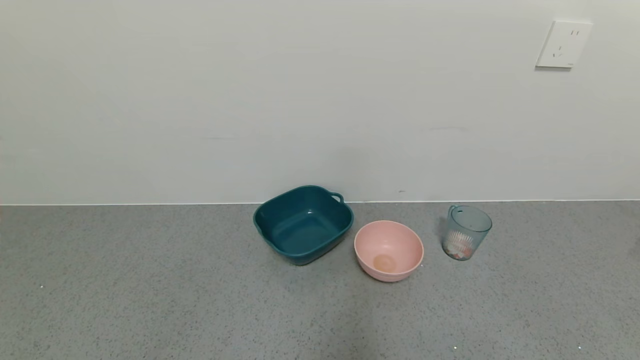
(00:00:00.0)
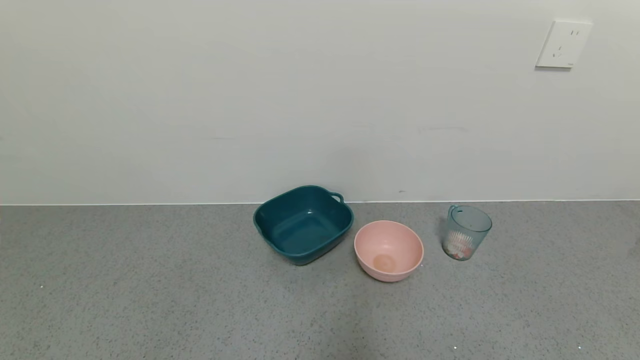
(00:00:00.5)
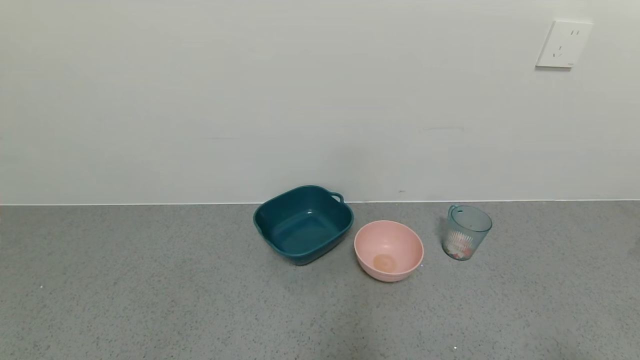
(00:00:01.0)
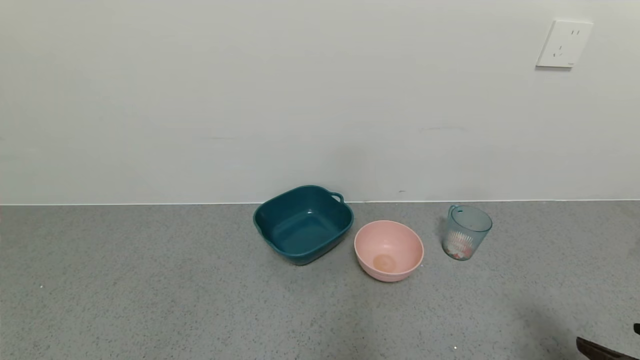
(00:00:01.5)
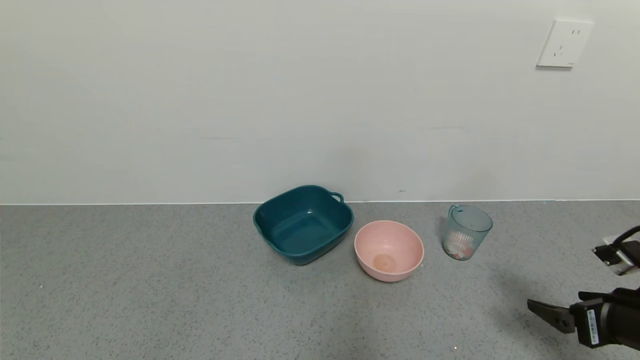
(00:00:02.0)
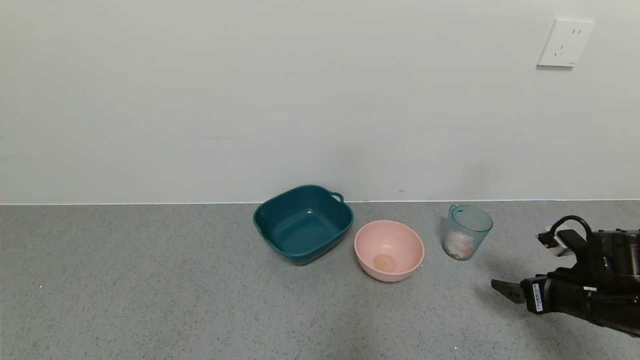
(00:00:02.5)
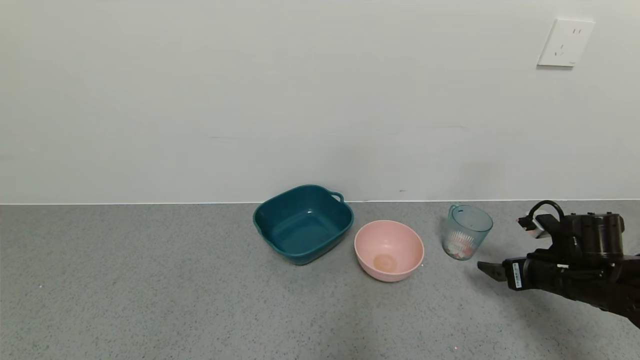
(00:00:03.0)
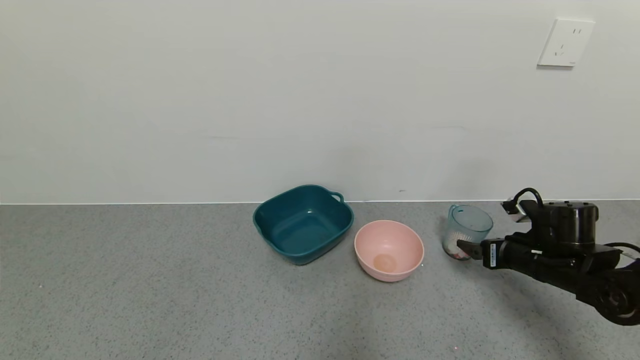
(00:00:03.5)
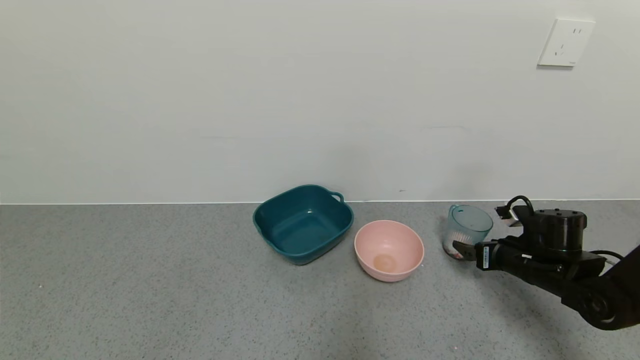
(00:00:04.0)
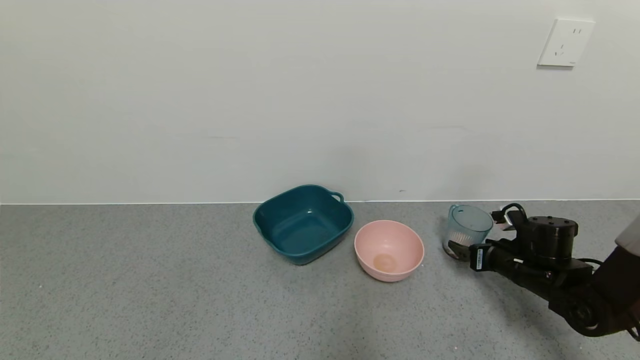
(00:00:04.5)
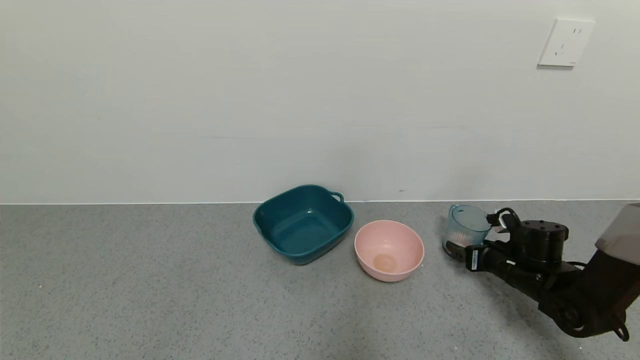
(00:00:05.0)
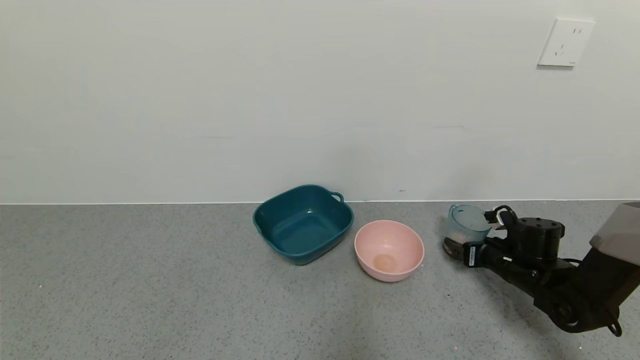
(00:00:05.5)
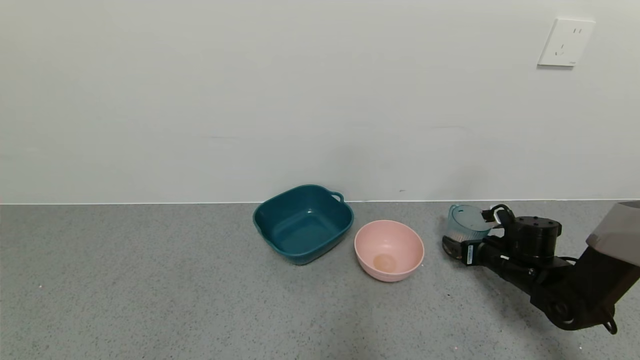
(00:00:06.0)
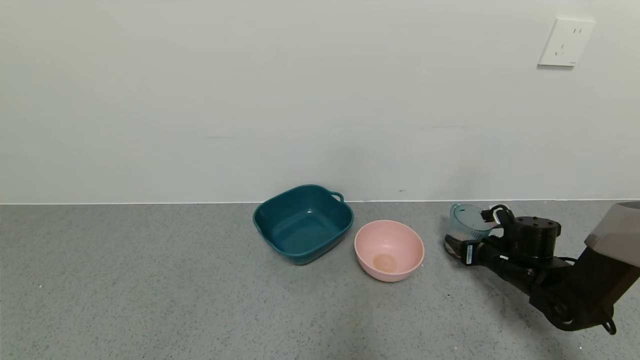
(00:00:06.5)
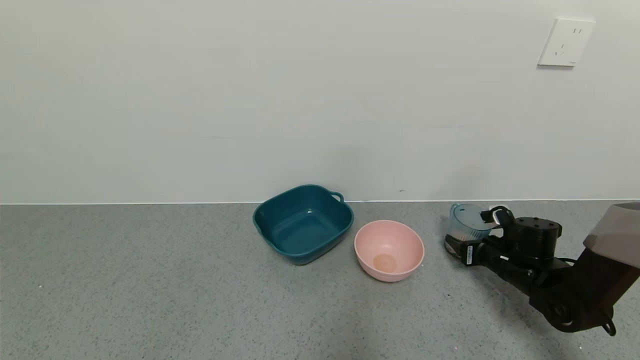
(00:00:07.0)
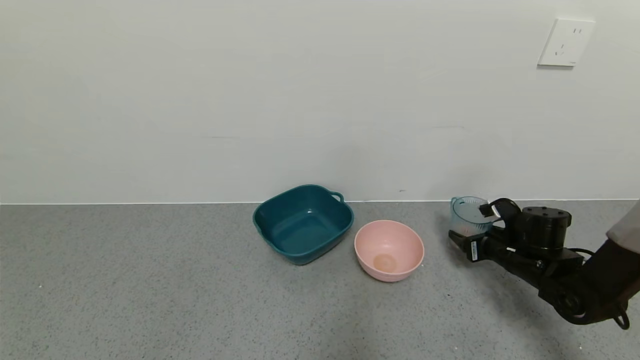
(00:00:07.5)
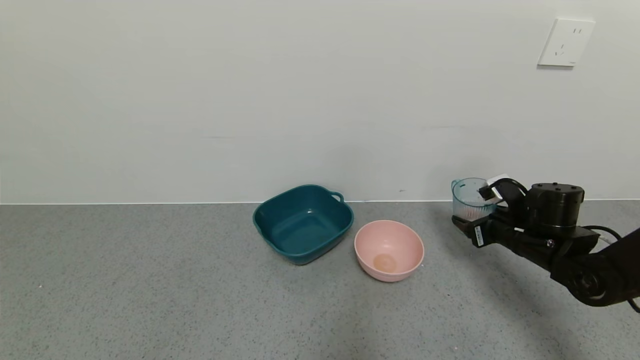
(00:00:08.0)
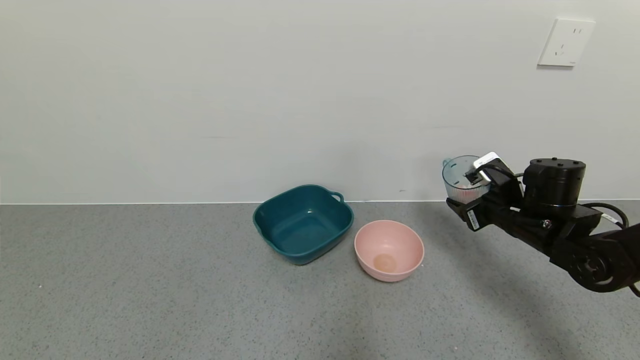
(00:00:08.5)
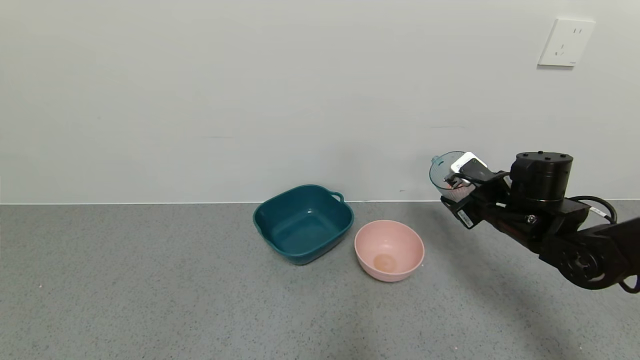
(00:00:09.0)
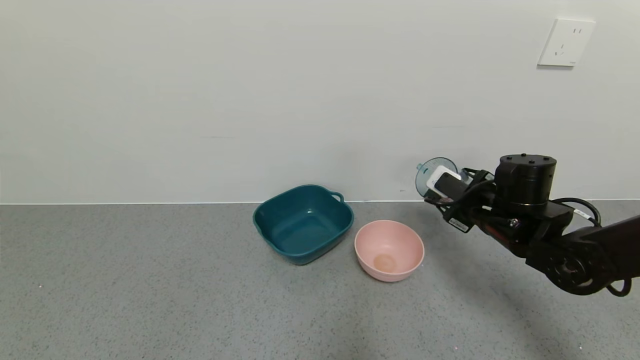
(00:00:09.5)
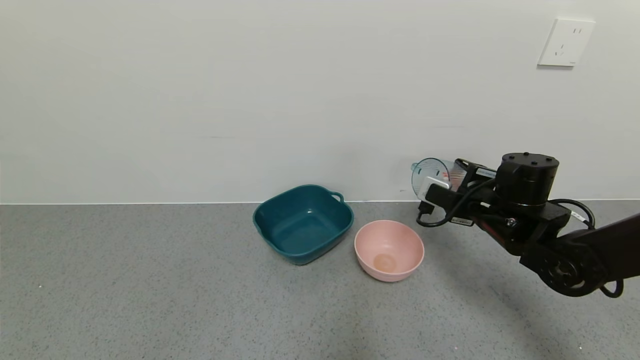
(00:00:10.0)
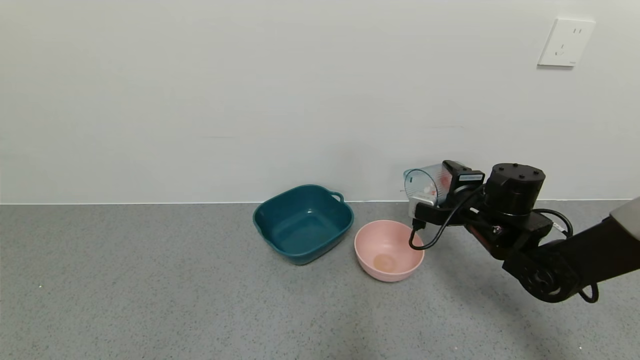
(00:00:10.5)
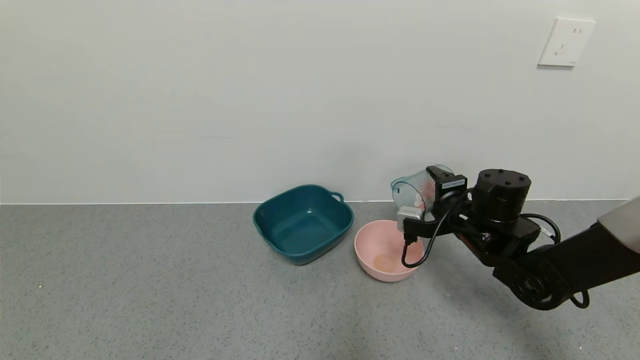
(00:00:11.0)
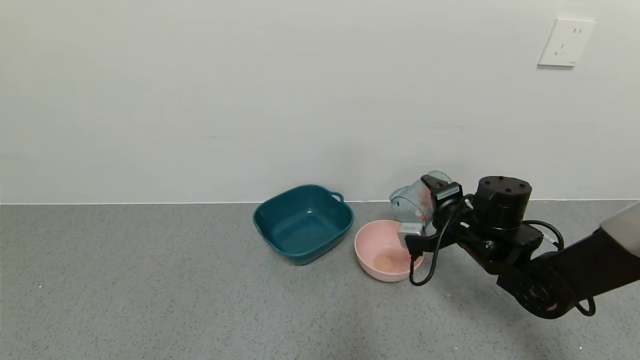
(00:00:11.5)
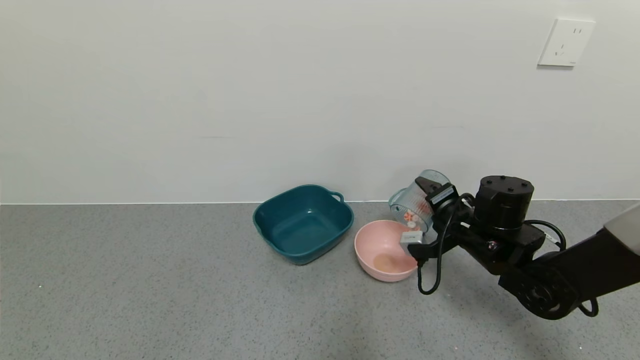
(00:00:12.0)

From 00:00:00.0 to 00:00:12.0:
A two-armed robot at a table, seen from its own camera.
Task of the whole recording: use a gripper to pick up the cup and pour the solid into a bowl or tray.
Step, from 00:00:00.0 to 00:00:07.0: Grasp the glass of shrimp with the right gripper.
From 00:00:00.0 to 00:00:02.0: The right gripper goes some 20 cm forward.
From 00:00:02.0 to 00:00:04.0: The right gripper is displaced forward and downward by about 15 cm.
From 00:00:04.0 to 00:00:06.0: The grippers stay close to where they were, moving slightly.
From 00:00:06.0 to 00:00:08.0: The right gripper travels upward by roughly 10 cm, and closes its fingers.
From 00:00:08.0 to 00:00:10.0: The right gripper shifts roughly 10 cm to the left and upward.

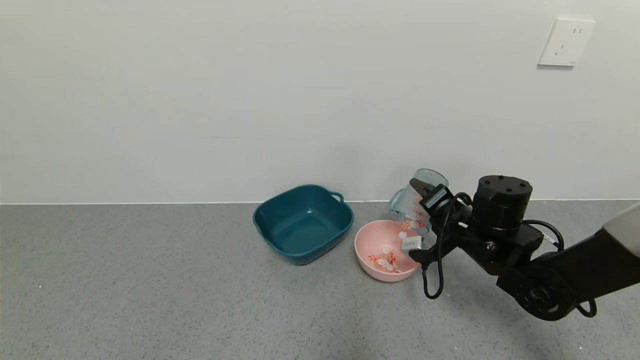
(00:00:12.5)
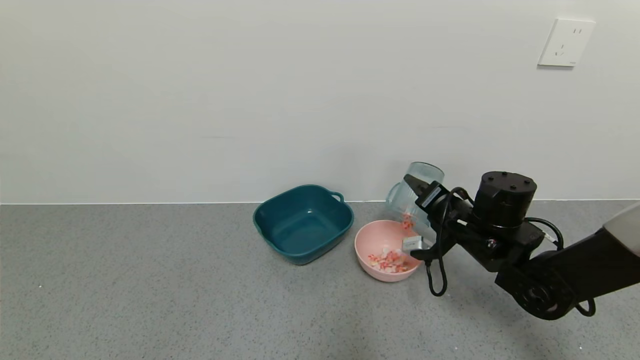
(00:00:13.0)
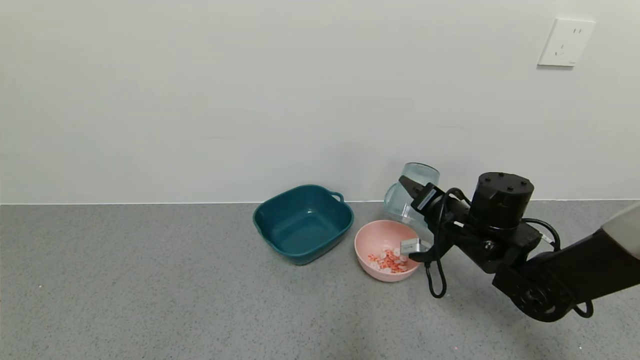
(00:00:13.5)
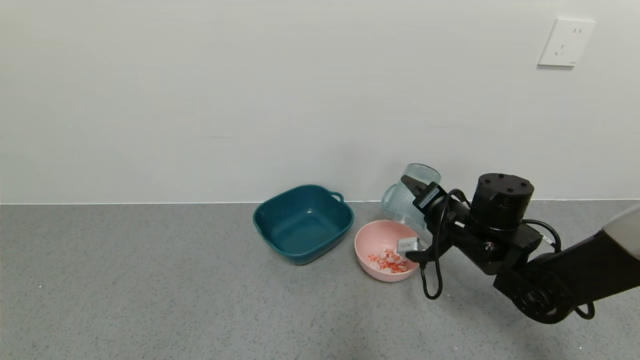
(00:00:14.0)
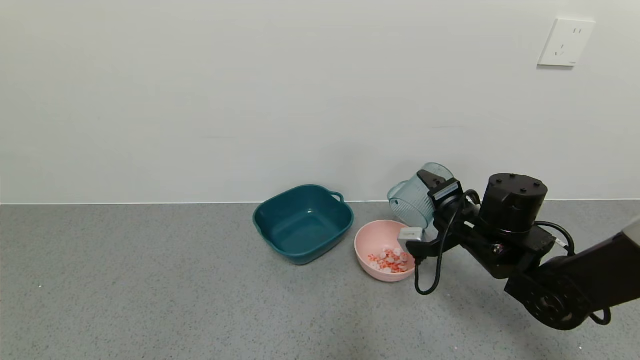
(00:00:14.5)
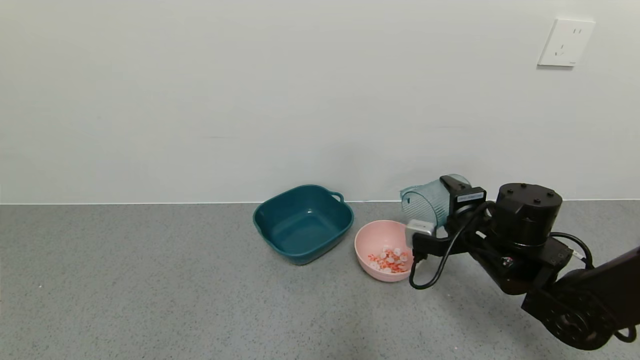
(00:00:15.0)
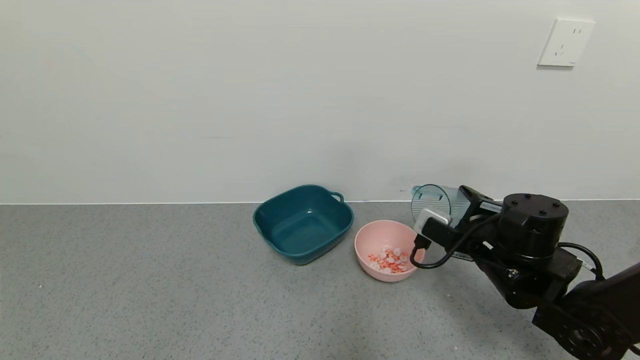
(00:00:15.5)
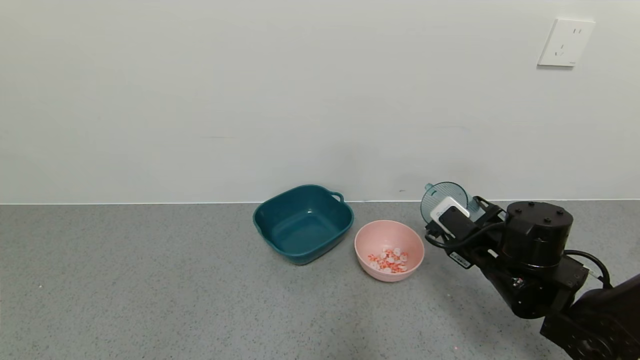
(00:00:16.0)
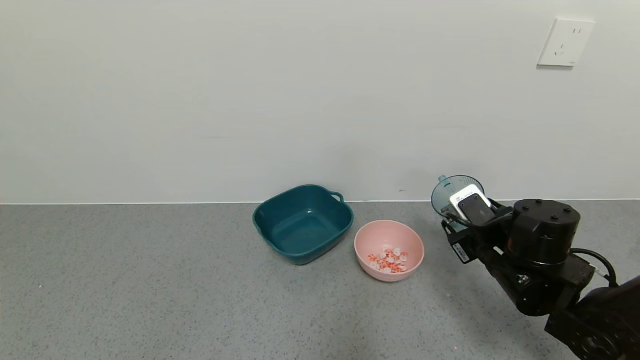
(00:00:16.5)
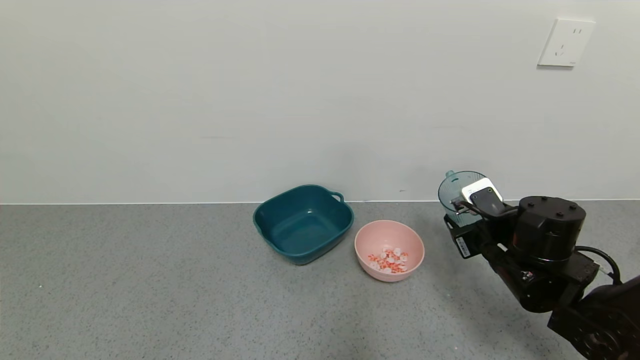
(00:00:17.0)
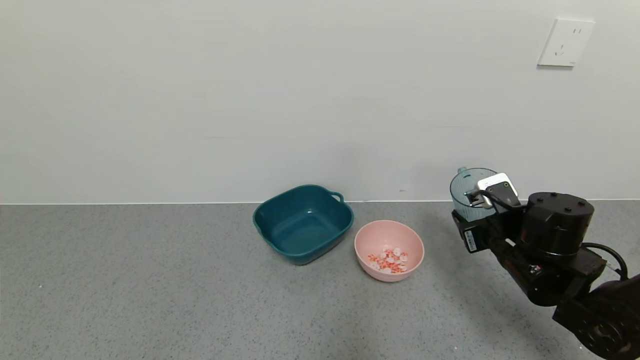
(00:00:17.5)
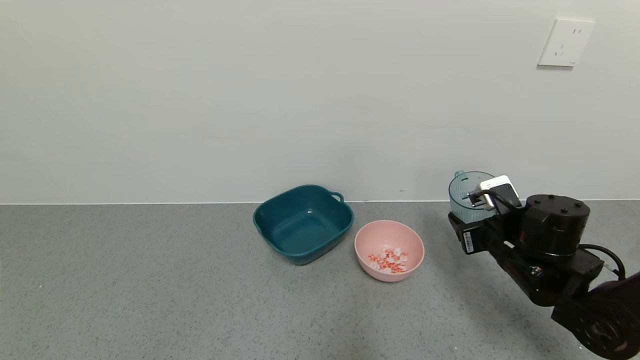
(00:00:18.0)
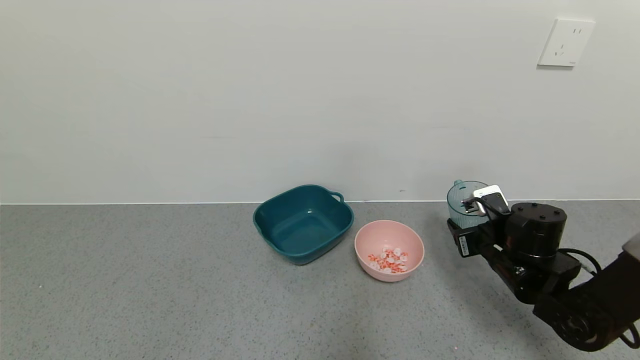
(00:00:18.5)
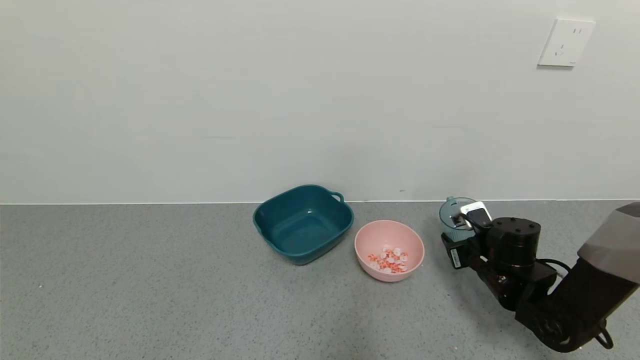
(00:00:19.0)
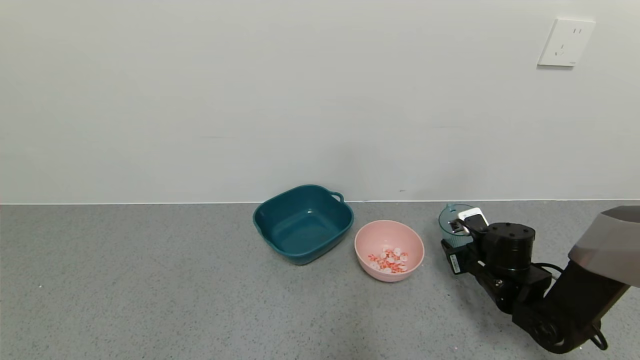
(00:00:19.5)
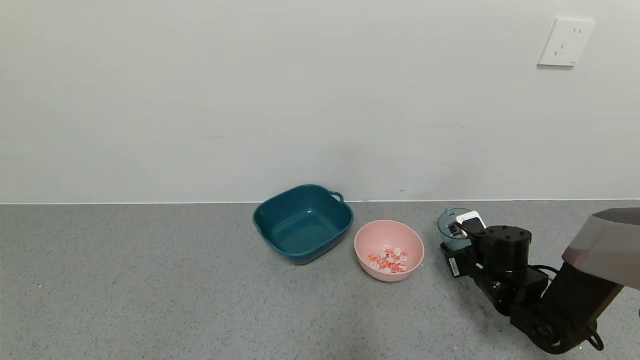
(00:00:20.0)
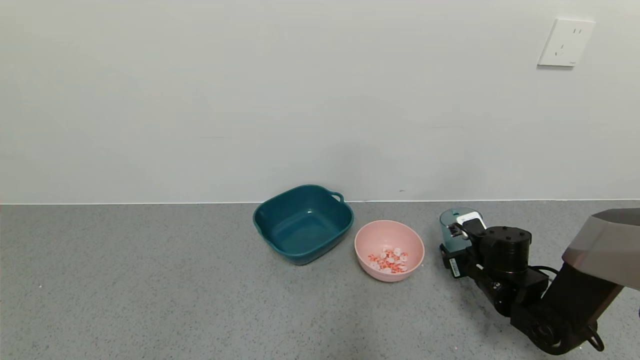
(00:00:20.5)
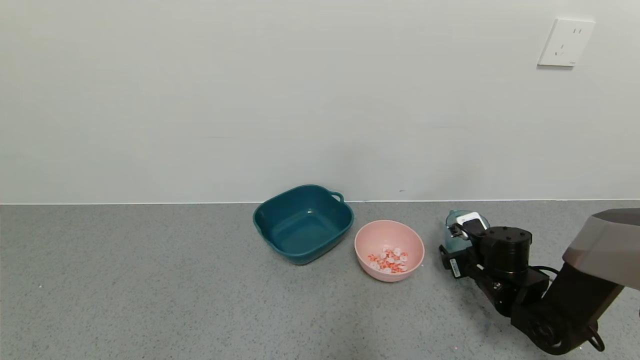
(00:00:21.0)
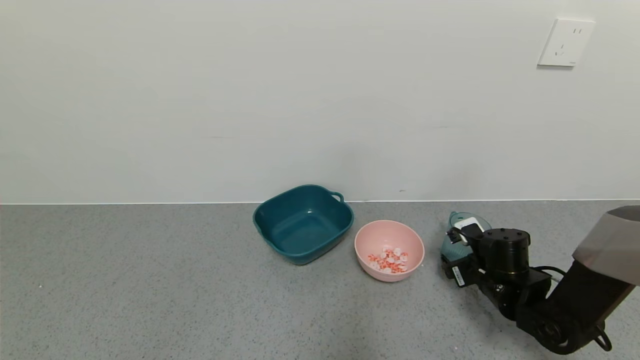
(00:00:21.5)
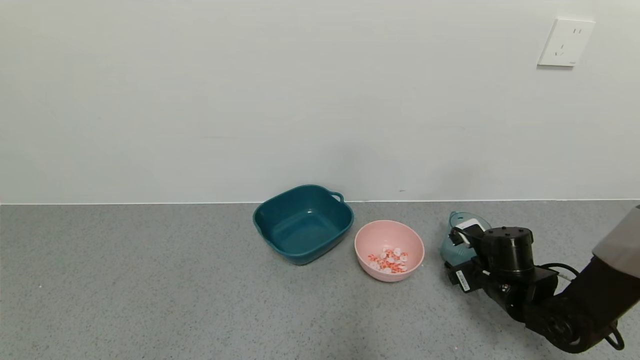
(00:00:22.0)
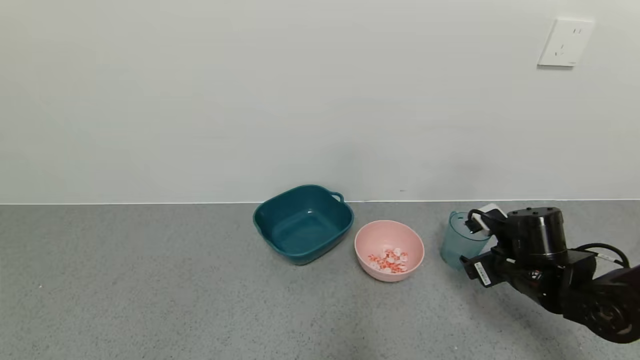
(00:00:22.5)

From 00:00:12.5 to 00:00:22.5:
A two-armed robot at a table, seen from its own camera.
Task of the whole recording: use a gripper to pick up the cup and pour the solid into a bowl or tray.
Step, from 00:00:14.5 to 00:00:22.0: Place the glass cup with the right gripper.
From 00:00:12.5 to 00:00:14.5: The grippers make only small movements.
From 00:00:14.5 to 00:00:16.5: The right gripper changes place by roughly 5 cm.
From 00:00:16.5 to 00:00:18.5: The right gripper changes place by about 5 cm.
From 00:00:18.5 to 00:00:20.5: The right gripper heads downward, covering approximately 5 cm, and opens.
From 00:00:20.5 to 00:00:22.5: The right gripper goes roughly 5 cm upward.
